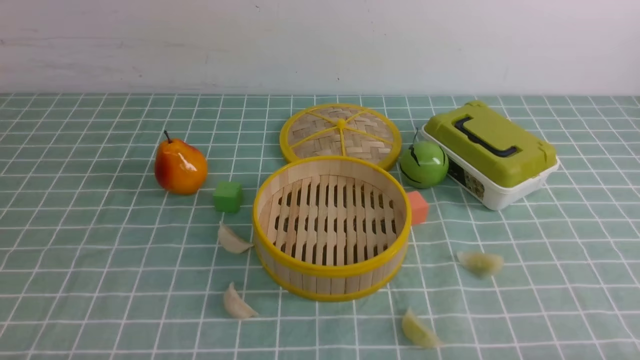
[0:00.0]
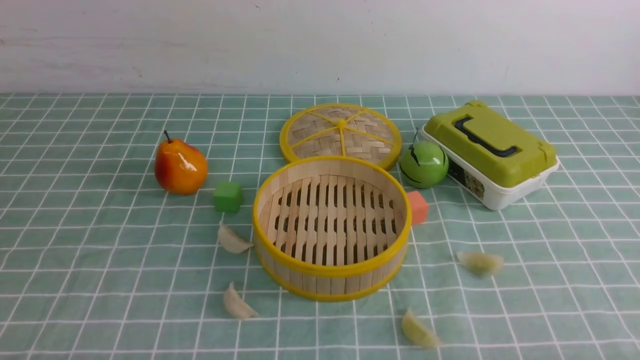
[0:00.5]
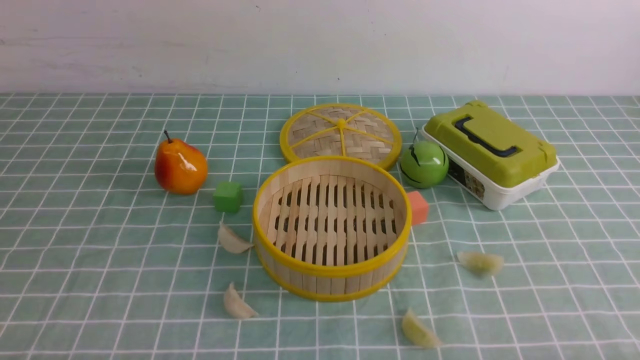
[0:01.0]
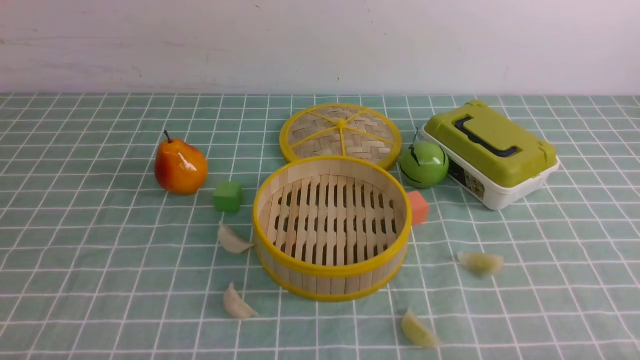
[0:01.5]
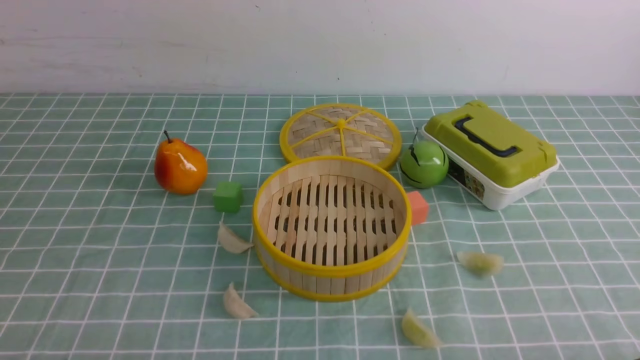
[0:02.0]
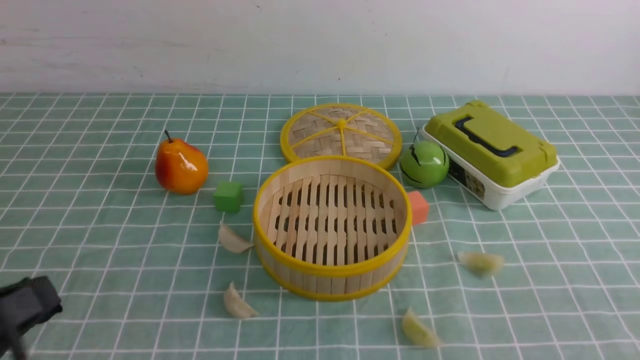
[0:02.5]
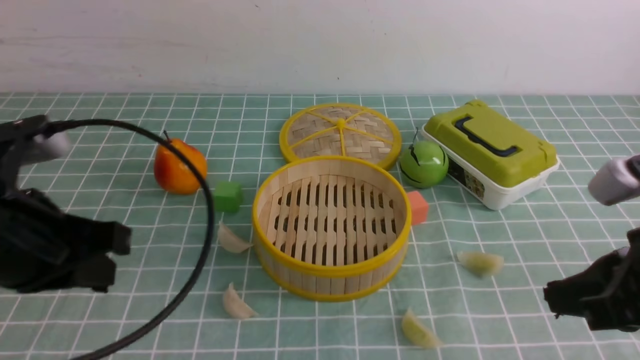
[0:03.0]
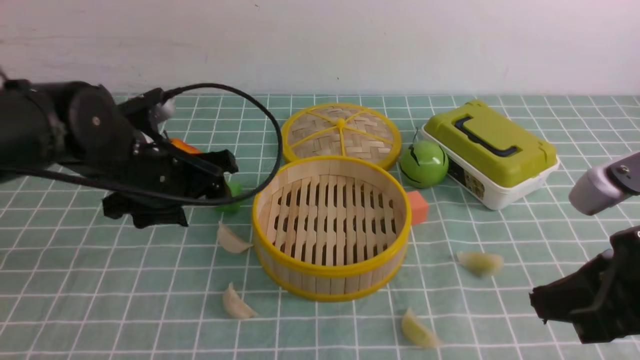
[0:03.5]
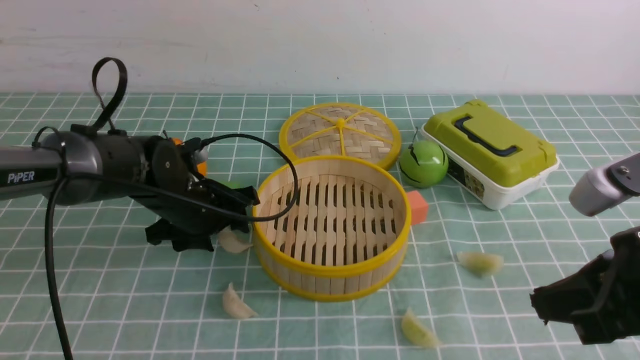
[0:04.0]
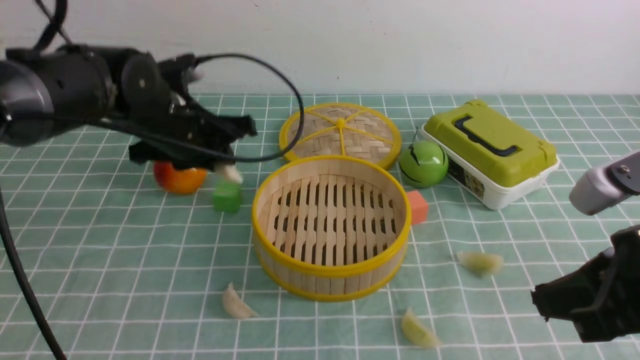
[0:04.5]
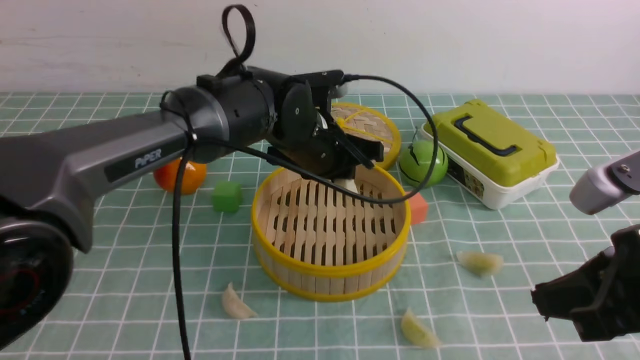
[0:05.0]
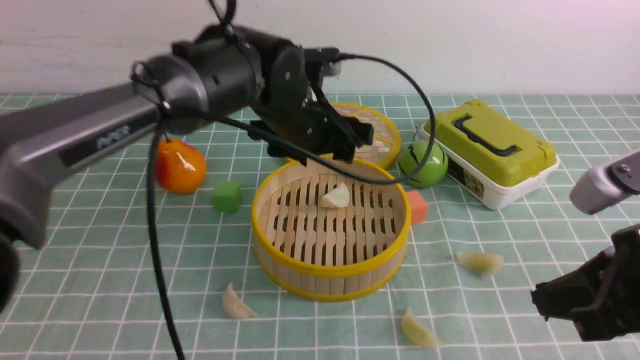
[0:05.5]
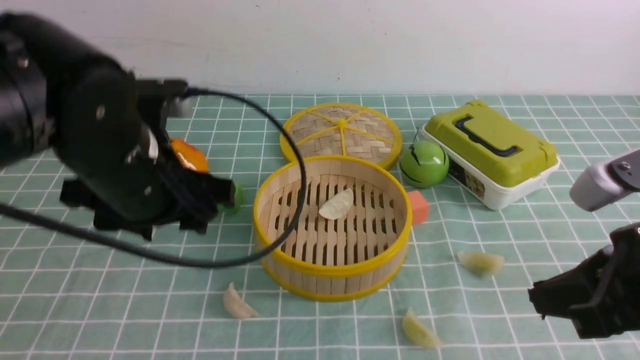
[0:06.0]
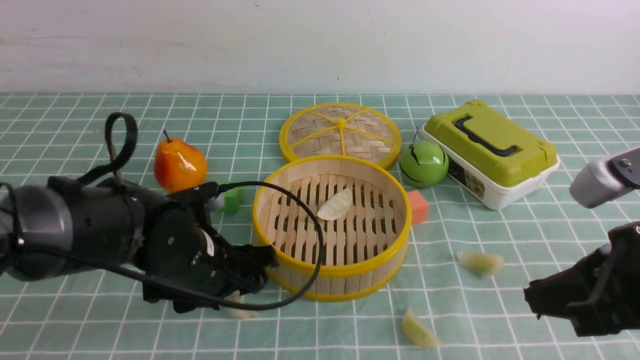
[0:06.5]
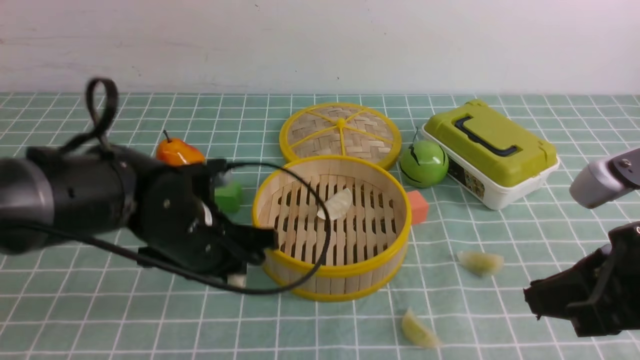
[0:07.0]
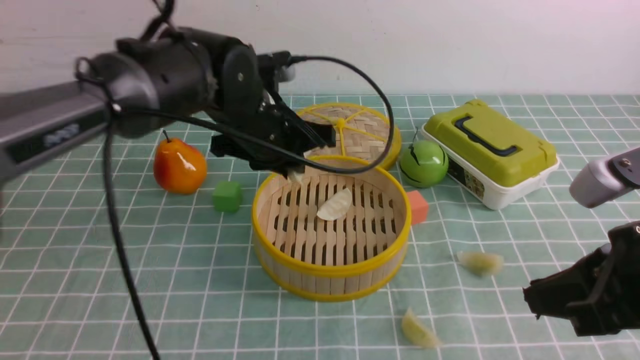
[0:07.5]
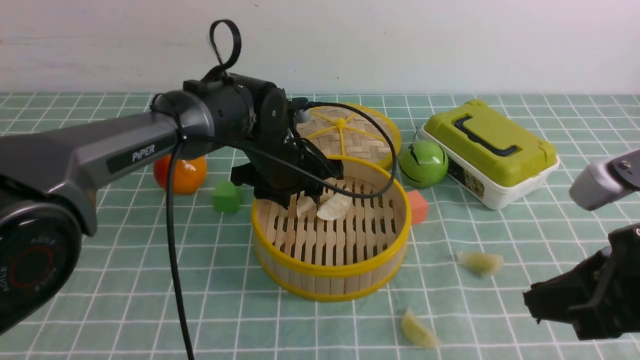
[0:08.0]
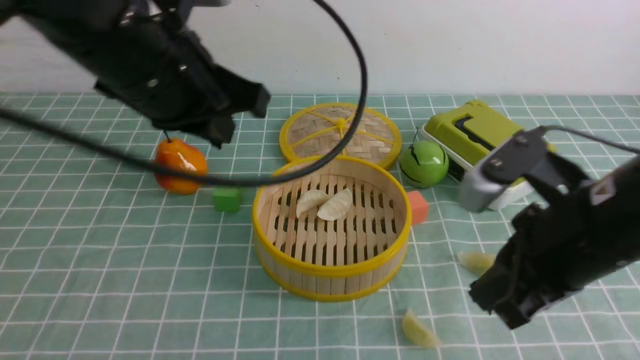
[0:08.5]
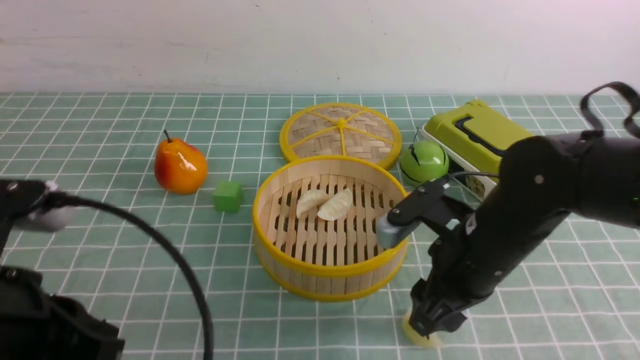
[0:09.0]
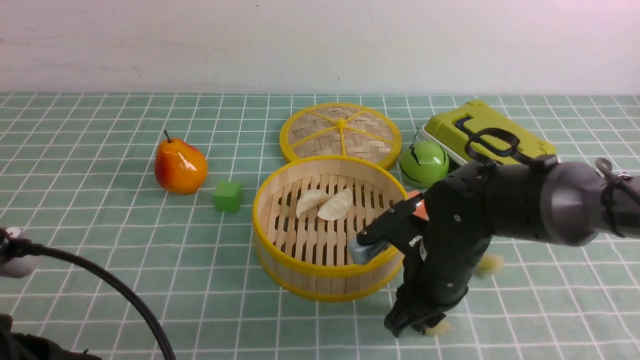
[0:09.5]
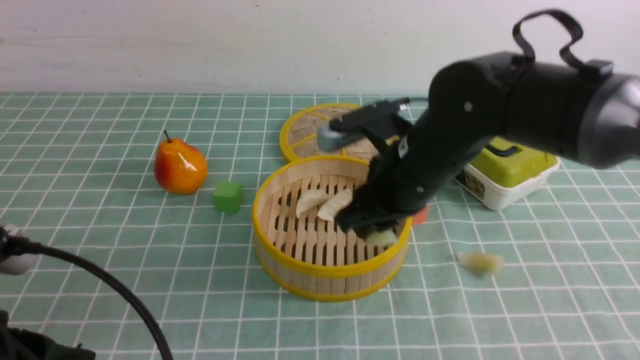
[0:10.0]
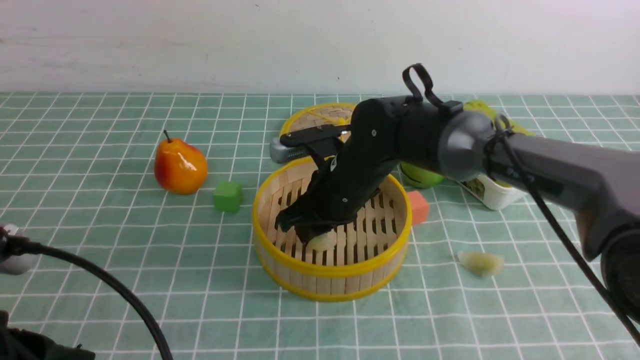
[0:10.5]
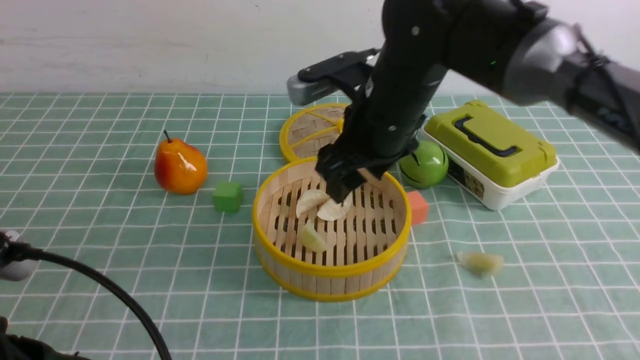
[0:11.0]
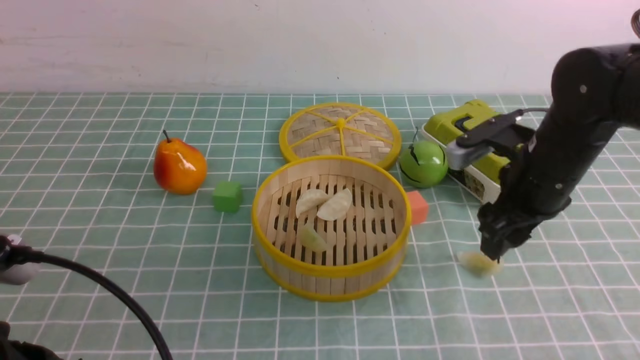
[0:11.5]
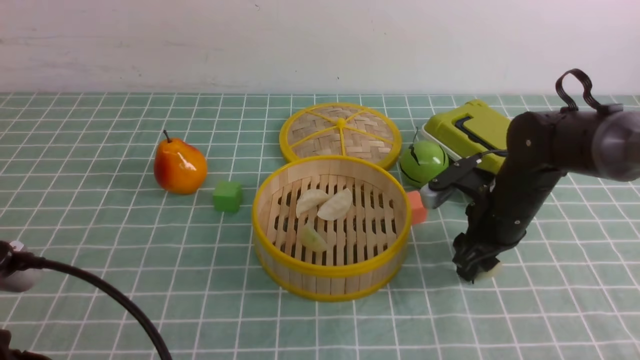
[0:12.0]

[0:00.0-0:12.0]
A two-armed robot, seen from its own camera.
Task of the whole recording: put the dumplings into the steamer on the table with the blue tablecloth.
Step, 0:00.0 to 0:04.5: use the left arm to grab a dumpling.
Step, 0:05.0 to 0:05.5: use the left arm to put the dumpling into the steamer.
Step, 0:06.0 to 0:06.5: use the left arm to grab a dumpling.
Step, 0:07.5 to 0:08.0: use the left arm to put the dumpling into the steamer.
Step, 0:08.5 to 0:09.5: use the right arm to grab a dumpling.
Step, 0:10.0 to 0:11.0: use the right arm to put the dumpling into the steamer.
0:02.0 to 0:04.0: The right gripper heads forward, upward and to the left, covering approximately 20 cm, and closes up; the left gripper moves forward, about 35 cm.
0:04.0 to 0:06.0: The left gripper moves upward and backward, approximately 15 cm, travels to the right and back again, some 15 cm each way, and closes, then opens again.
0:06.0 to 0:08.0: The left gripper moves forward, to the right and downward, approximately 15 cm, and closes and opens again.
0:08.0 to 0:10.0: The right gripper goes about 20 cm to the left and forward, and opens, then closes once more, while the left gripper is displaced backward and to the left by approximately 35 cm, and closes.
0:10.0 to 0:12.0: The right gripper goes roughly 15 cm to the right and downward.

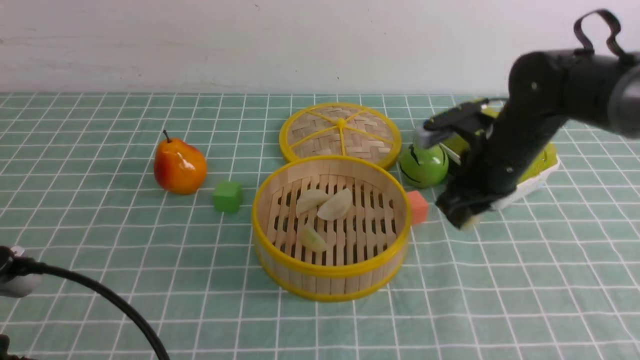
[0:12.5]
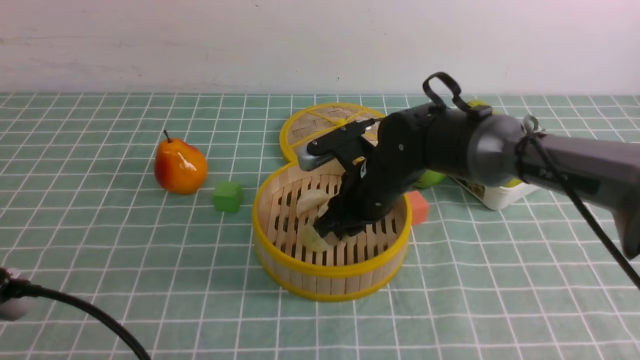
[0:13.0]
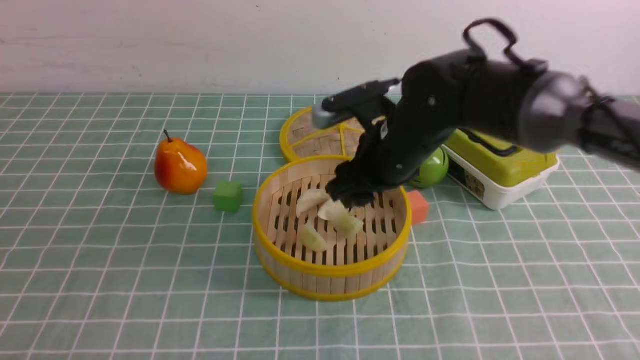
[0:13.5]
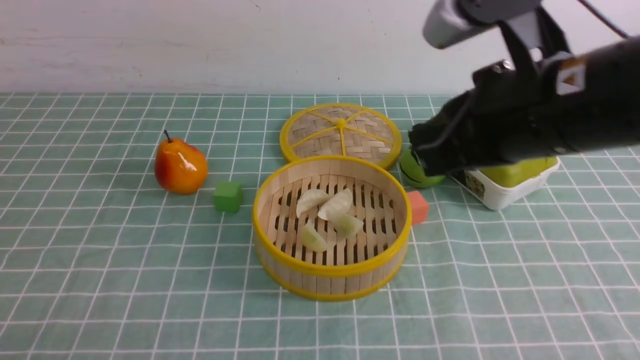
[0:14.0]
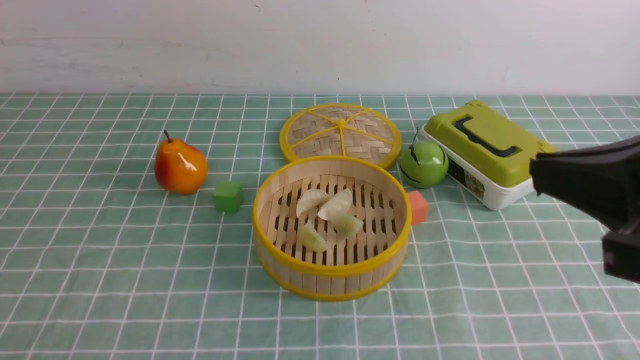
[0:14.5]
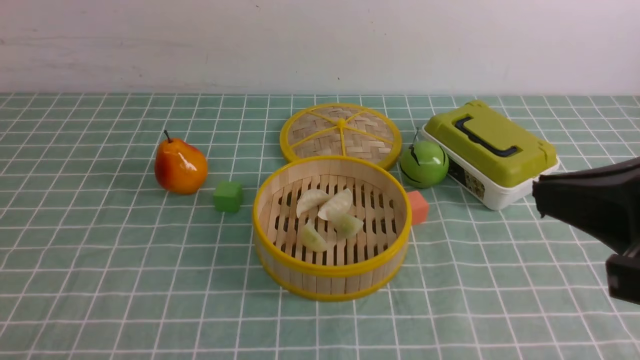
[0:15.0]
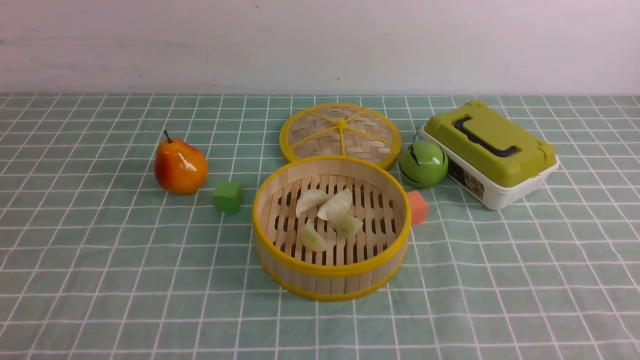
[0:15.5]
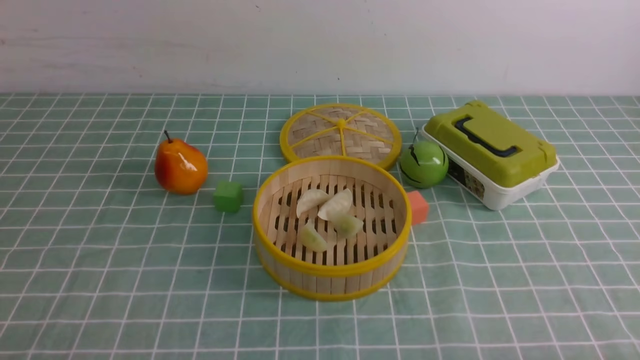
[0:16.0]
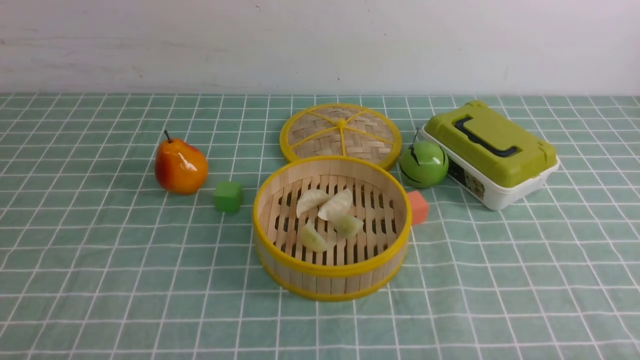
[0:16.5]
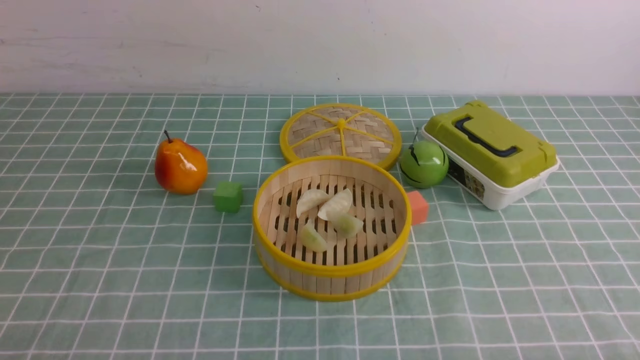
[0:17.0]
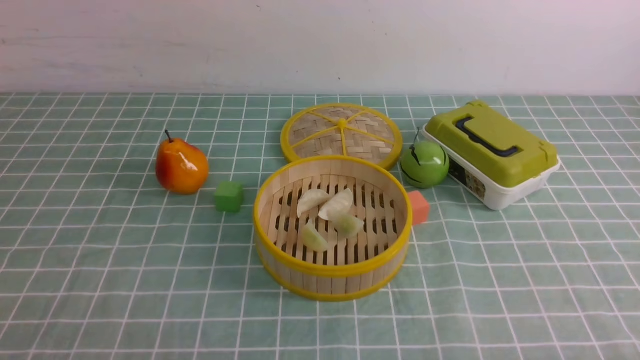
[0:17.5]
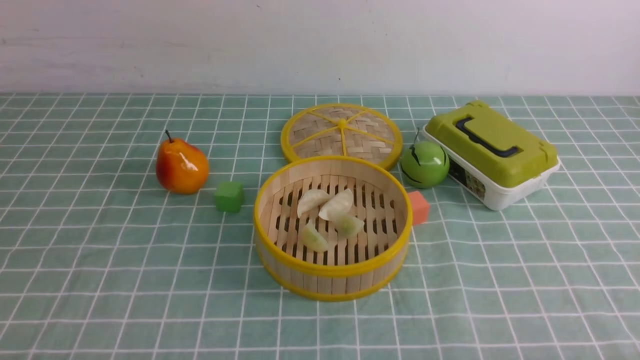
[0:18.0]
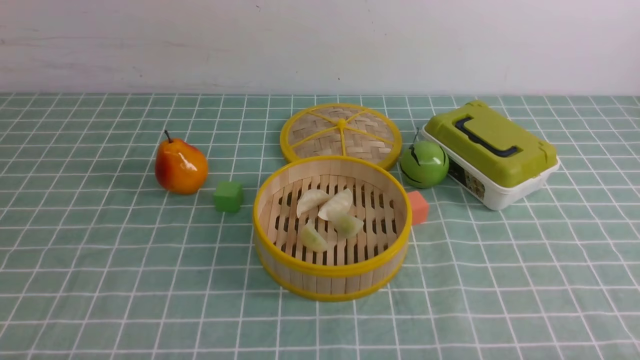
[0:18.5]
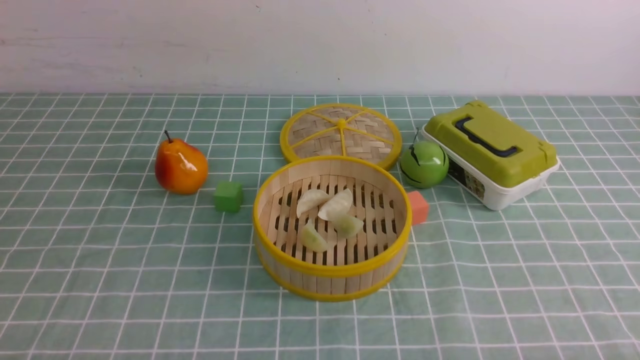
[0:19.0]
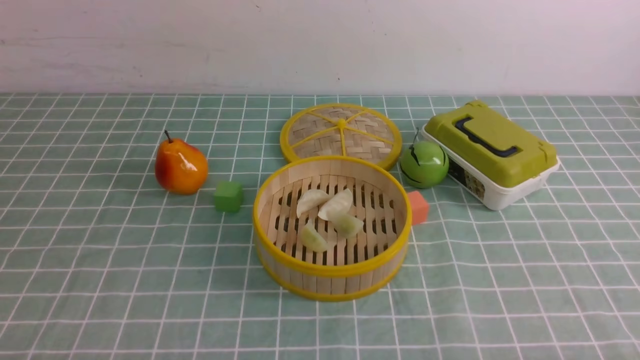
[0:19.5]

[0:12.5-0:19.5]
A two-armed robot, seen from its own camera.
Task of the whole recording: put the dumplings into the steamer on the table with the blue tablecloth.
Step, 0:13.0 to 0:13.5: use the right arm to put the dumpling into the steamer.
0:12.5 to 0:14.5: The right gripper travels backward and upward by approximately 30 cm, and closes; the left gripper travels backward and to the left by approximately 10 cm.
0:14.5 to 0:16.0: The right gripper shifts some 25 cm downward, to the right and backward.
